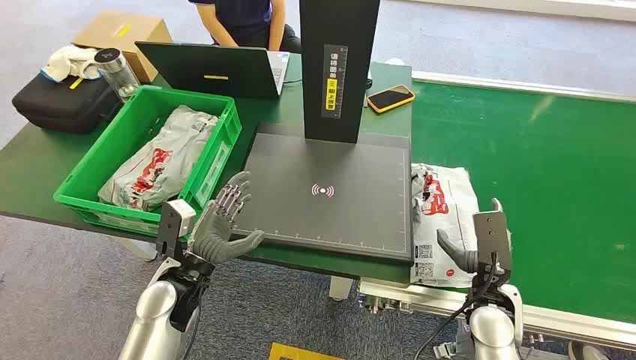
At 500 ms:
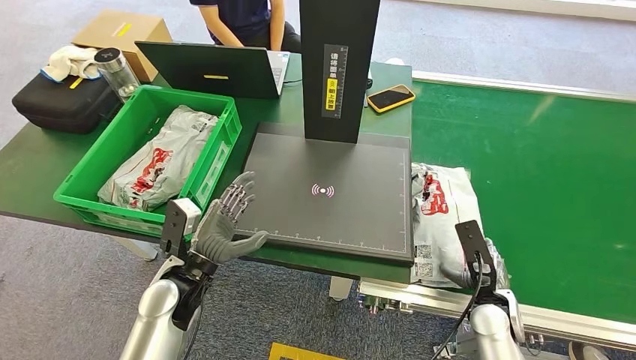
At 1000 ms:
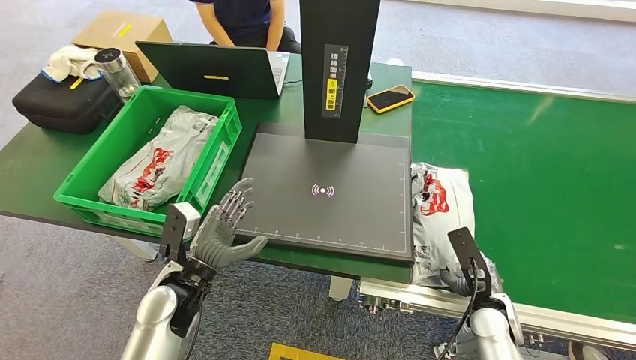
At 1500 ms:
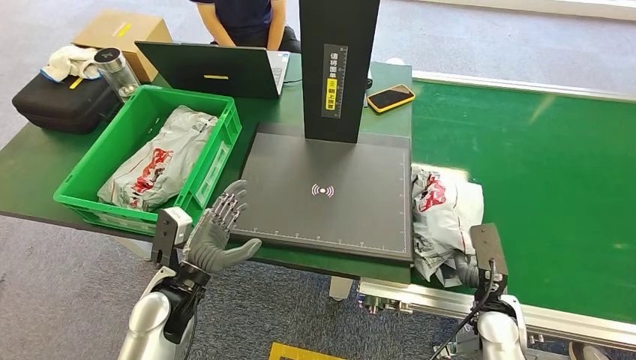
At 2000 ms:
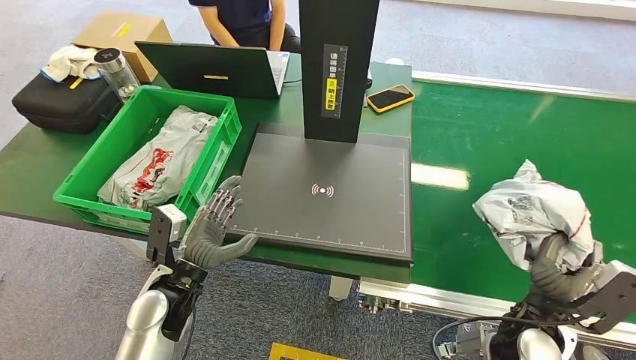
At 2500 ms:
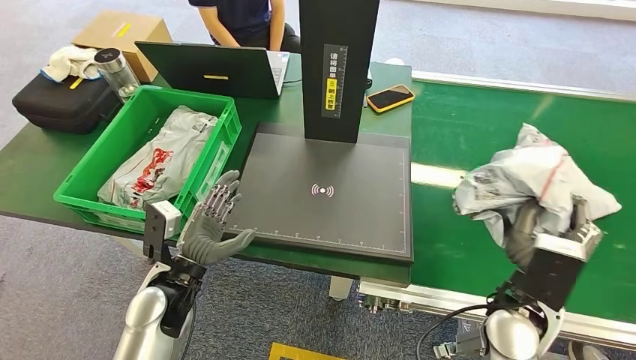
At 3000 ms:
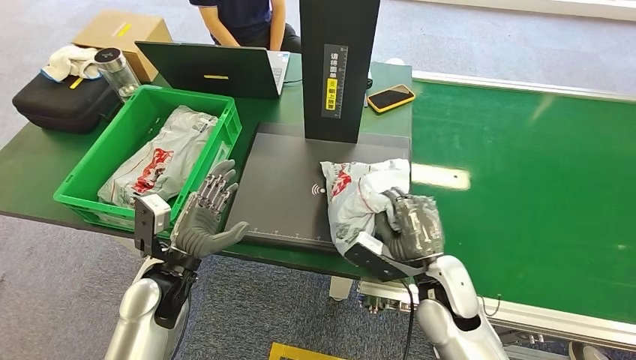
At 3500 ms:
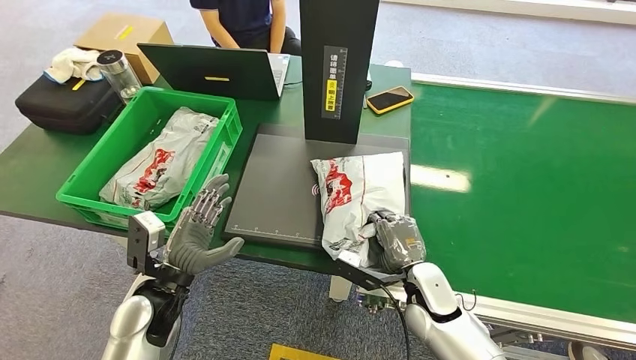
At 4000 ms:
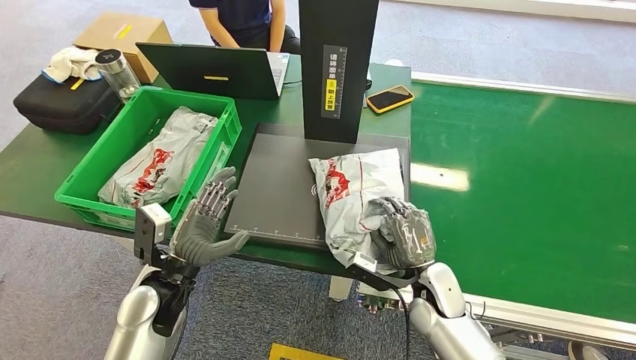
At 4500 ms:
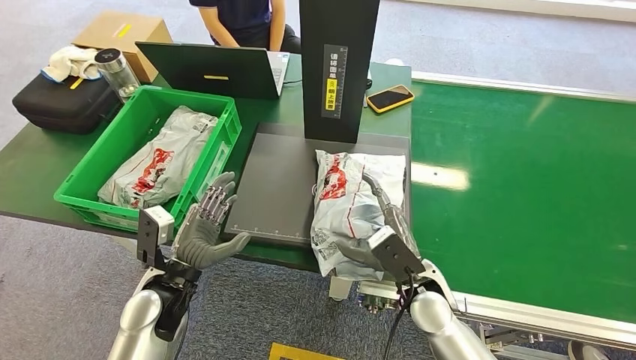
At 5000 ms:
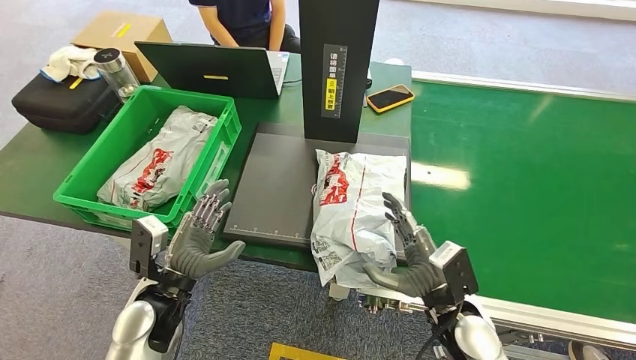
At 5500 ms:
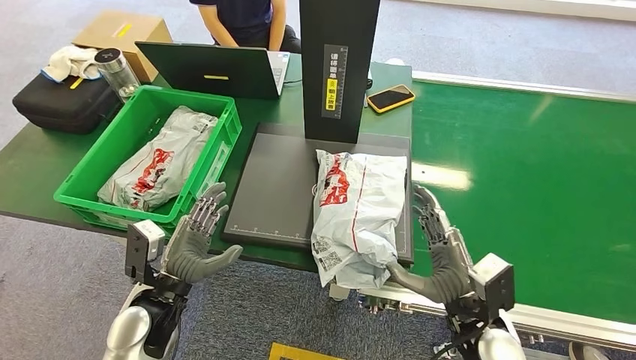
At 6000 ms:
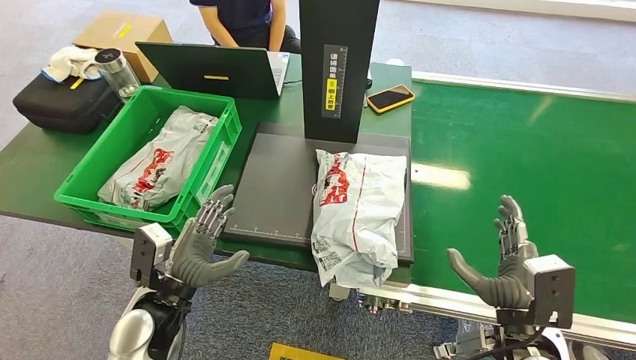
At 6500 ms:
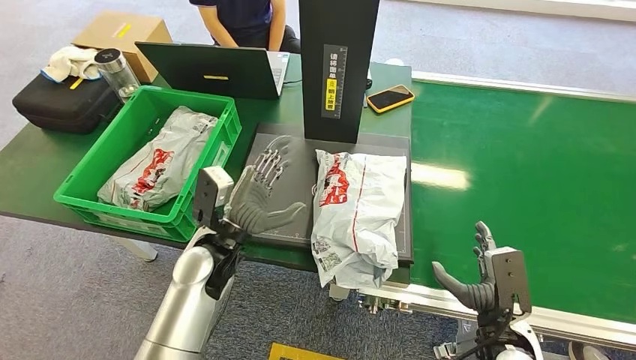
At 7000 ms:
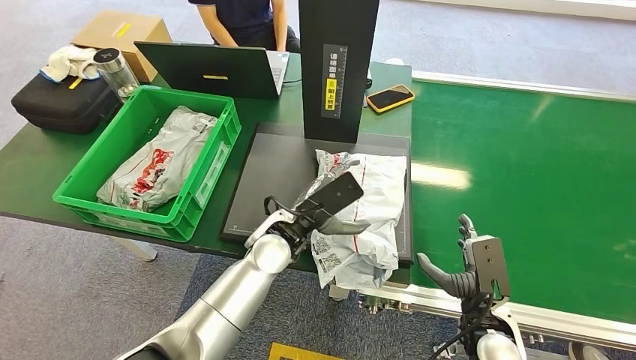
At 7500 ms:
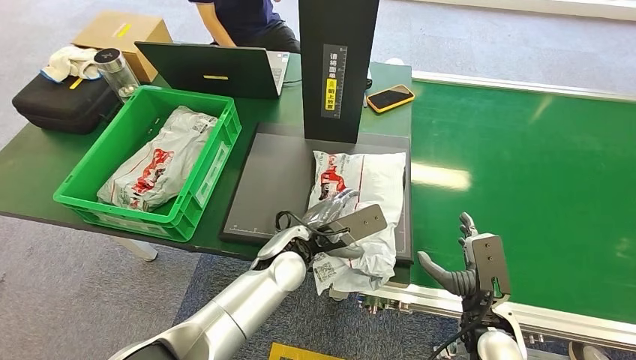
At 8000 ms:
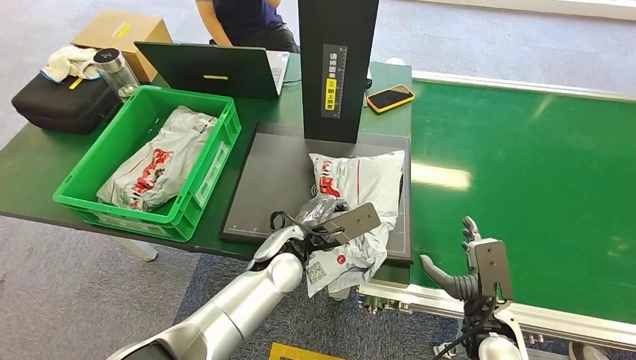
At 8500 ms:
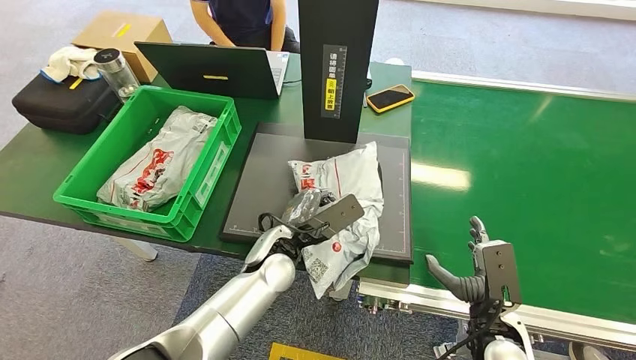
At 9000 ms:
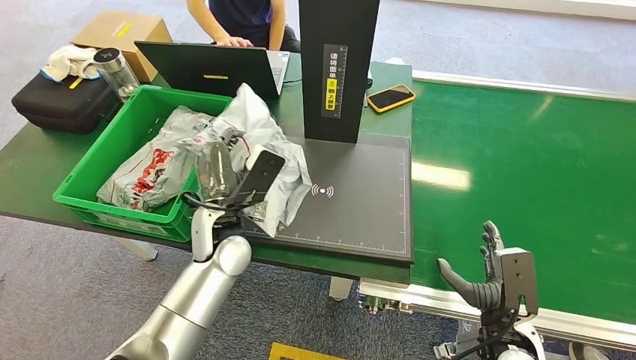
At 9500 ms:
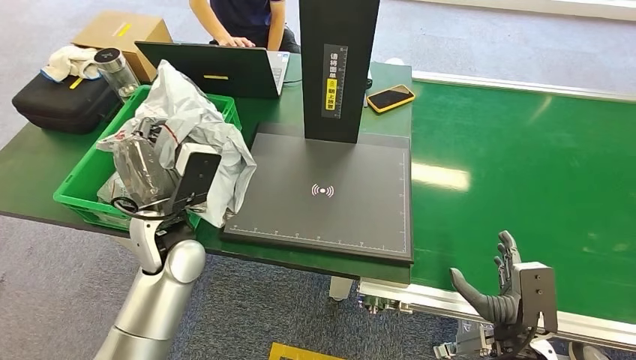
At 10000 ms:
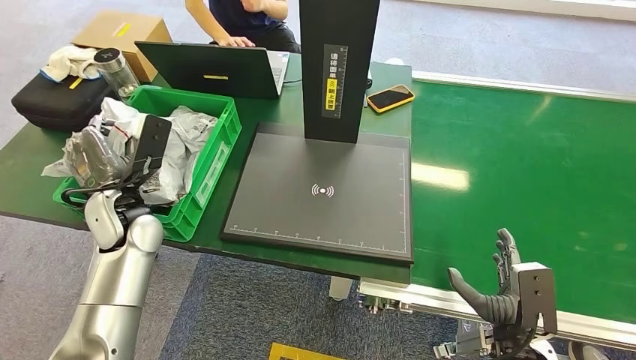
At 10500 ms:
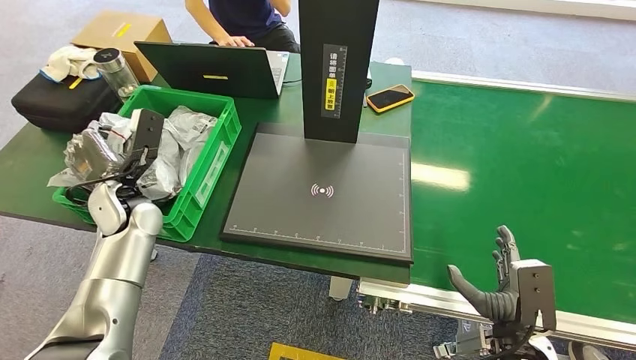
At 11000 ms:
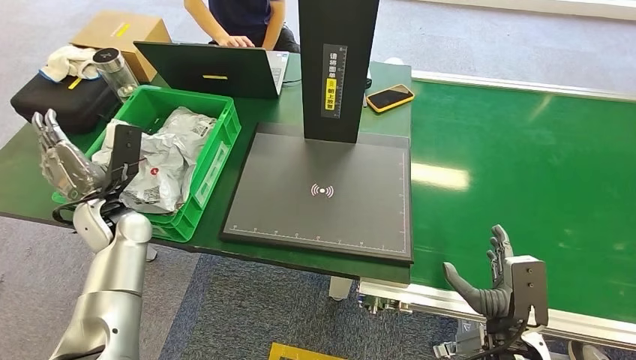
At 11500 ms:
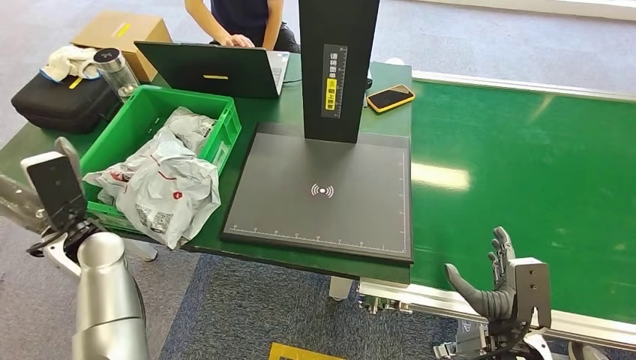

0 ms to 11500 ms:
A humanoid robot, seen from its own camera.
Step, 0 ms to 2000 ms: Pick up the package from the conveyor belt.
Step, 2500 ms to 5000 ms: Place the package onto the inbound machine.
Step, 6500 ms to 9000 ms: Pick up the package from the inbound machine.
Step, 9500 ms to 11500 ms: Place the package into the parcel locker.
4000 ms to 6000 ms: The right hand heads backward, to the right and upward, covering roughly 15 cm.
6000 ms to 7500 ms: The left hand shifts some 15 cm to the right and forward. Meanwhile the right hand moves downward, approximately 5 cm.
9500 ms to 11500 ms: The left hand goes roughly 10 cm to the left.
